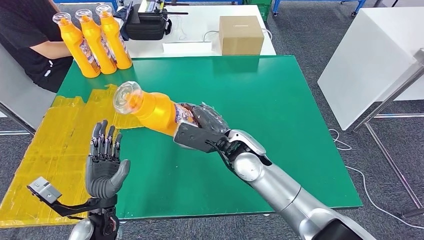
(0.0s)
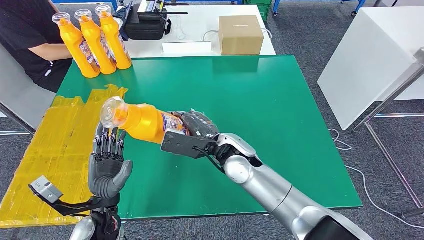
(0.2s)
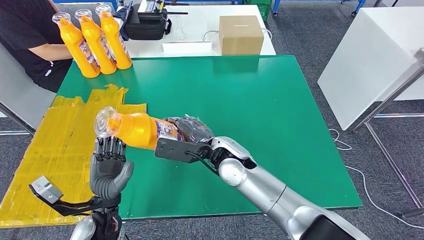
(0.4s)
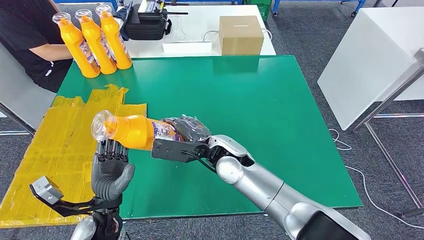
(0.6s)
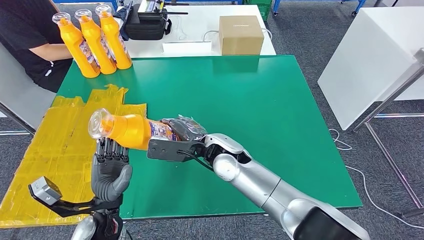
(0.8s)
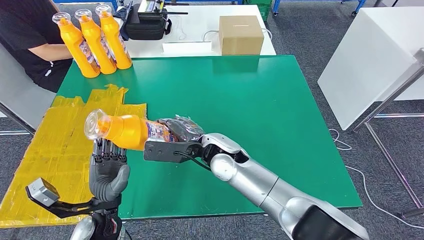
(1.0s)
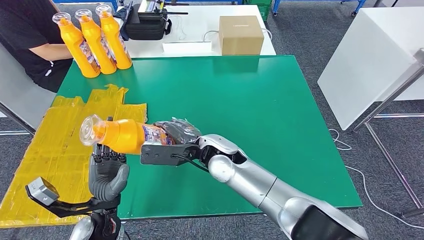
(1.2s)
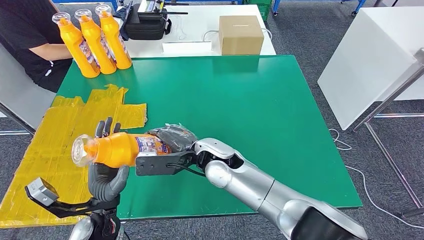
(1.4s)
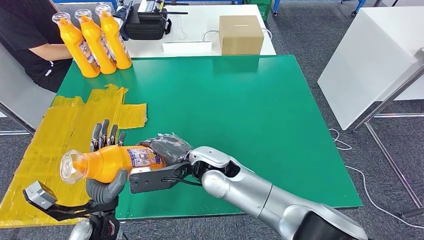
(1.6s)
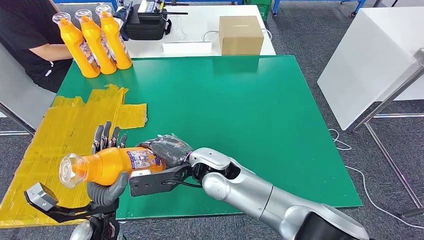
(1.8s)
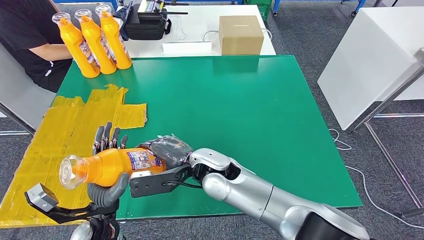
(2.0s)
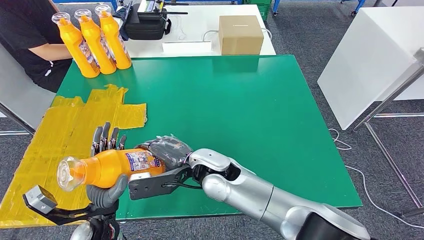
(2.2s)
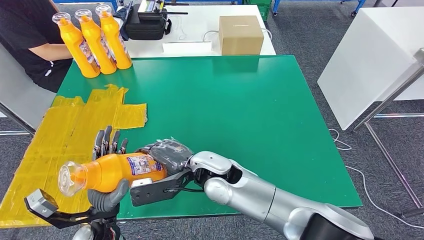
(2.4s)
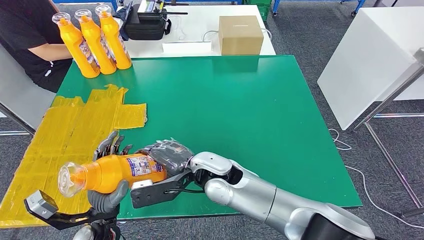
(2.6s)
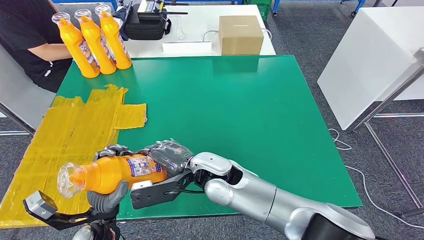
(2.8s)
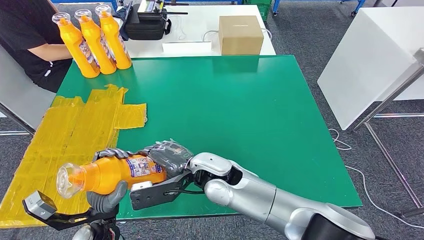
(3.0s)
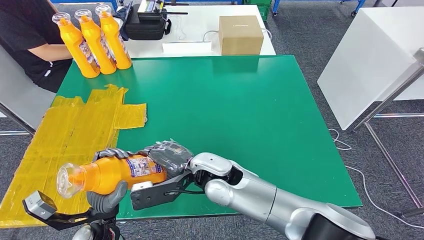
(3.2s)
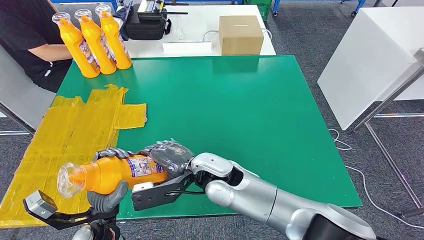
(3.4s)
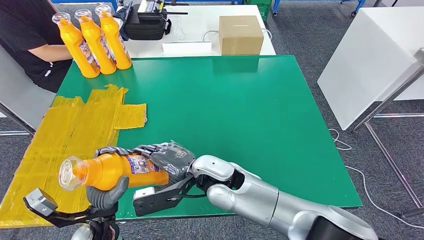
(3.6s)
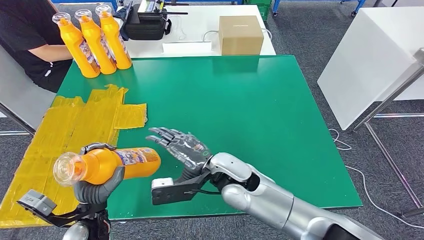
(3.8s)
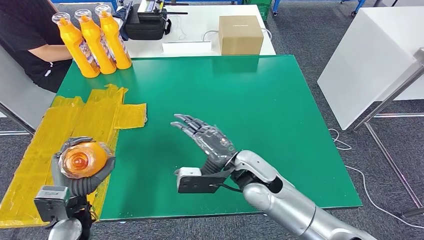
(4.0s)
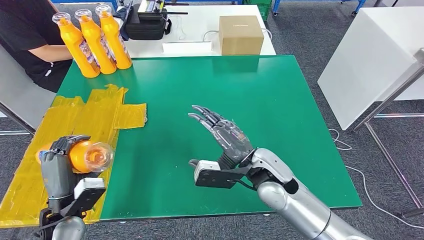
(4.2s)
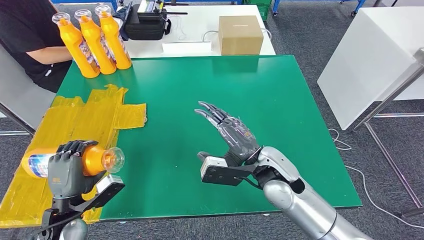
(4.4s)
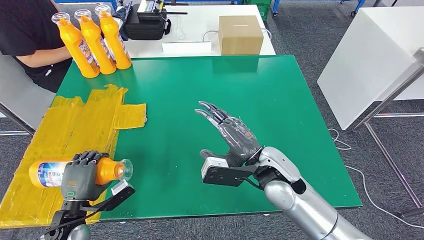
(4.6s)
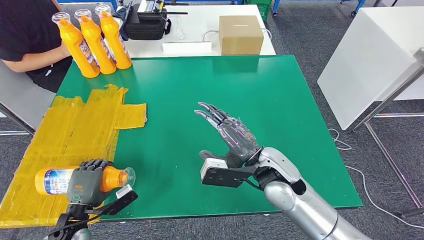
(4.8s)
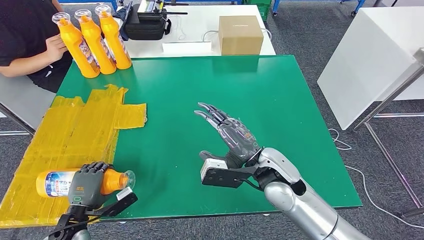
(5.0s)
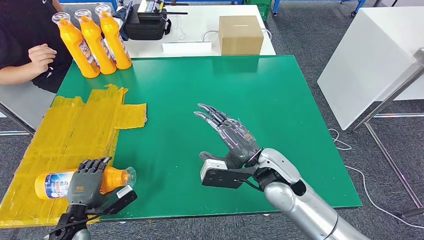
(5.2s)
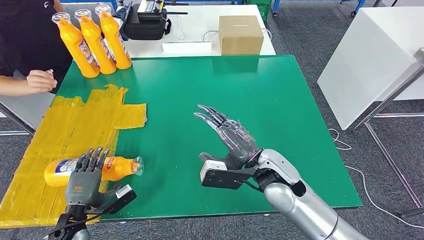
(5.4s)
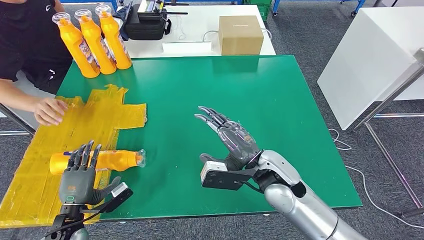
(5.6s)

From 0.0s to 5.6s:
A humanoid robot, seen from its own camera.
Step, from 0.8s to 5.6s: Flip the fast-moving consumer goods bottle to the front side.
From 0.0s to 1.4s: The right hand is displaced to the left by approximately 5 cm.
From 1.4s to 2.8s: There are only small adjustments of the hands.
From 2.8s to 4.2s: The right hand travels to the right by approximately 15 cm, while the left hand goes approximately 10 cm to the left.
From 4.2s to 5.6s: The left hand heads downward, covering approximately 5 cm.
